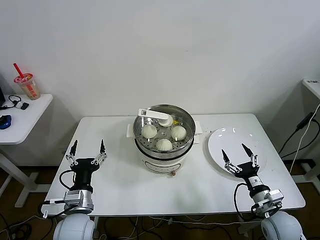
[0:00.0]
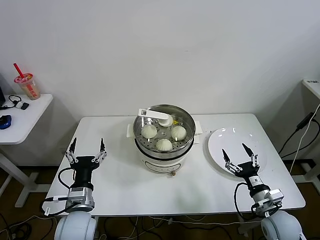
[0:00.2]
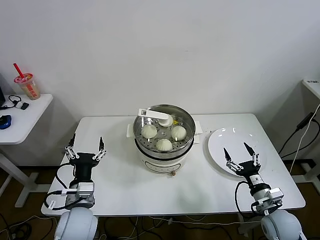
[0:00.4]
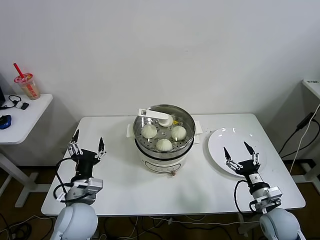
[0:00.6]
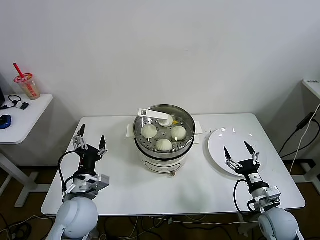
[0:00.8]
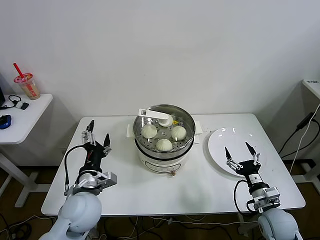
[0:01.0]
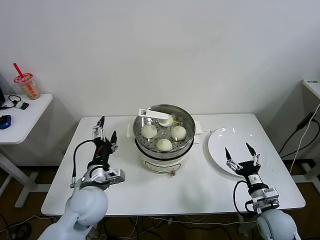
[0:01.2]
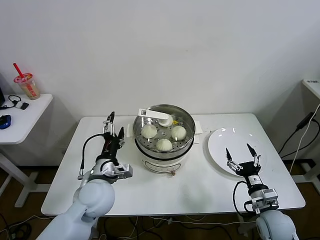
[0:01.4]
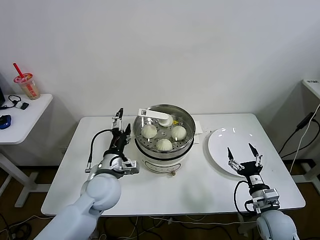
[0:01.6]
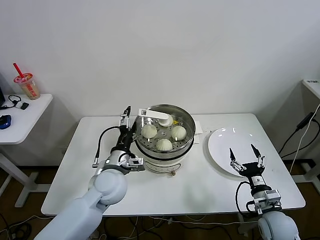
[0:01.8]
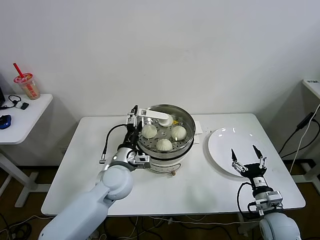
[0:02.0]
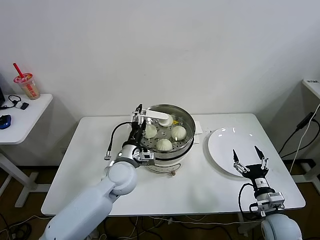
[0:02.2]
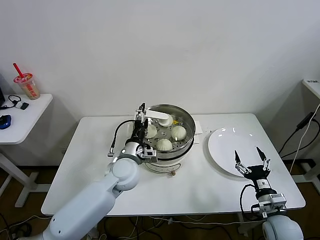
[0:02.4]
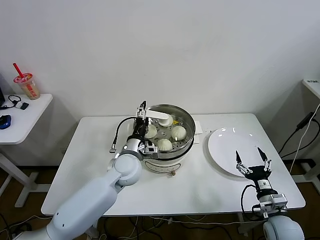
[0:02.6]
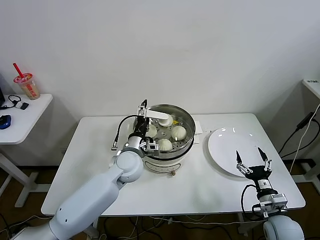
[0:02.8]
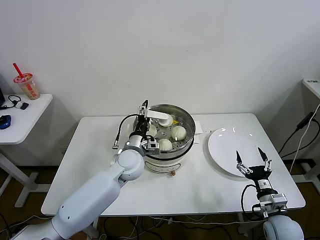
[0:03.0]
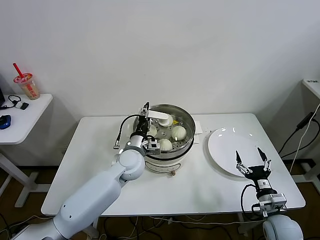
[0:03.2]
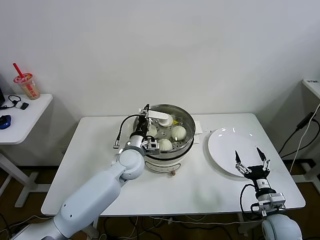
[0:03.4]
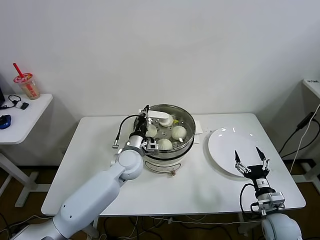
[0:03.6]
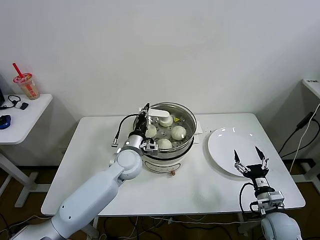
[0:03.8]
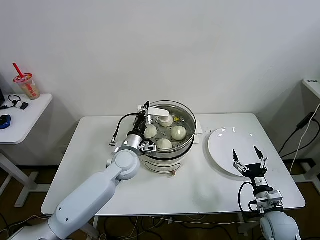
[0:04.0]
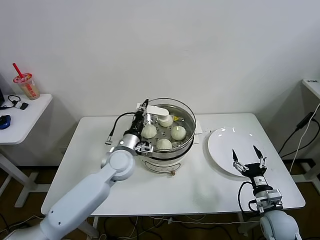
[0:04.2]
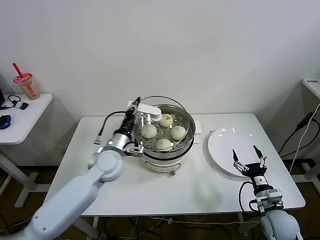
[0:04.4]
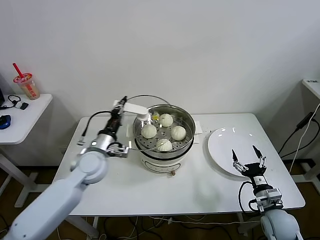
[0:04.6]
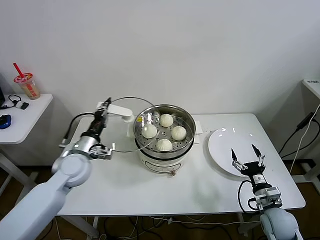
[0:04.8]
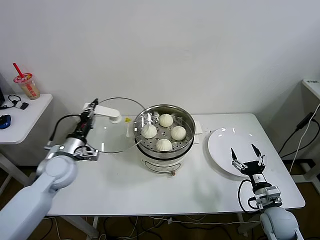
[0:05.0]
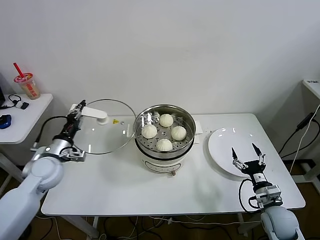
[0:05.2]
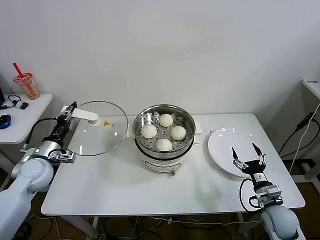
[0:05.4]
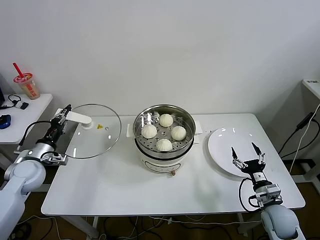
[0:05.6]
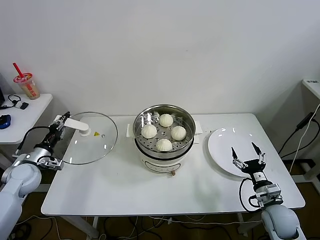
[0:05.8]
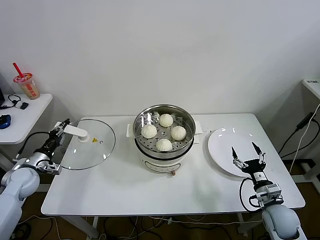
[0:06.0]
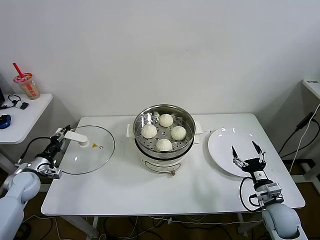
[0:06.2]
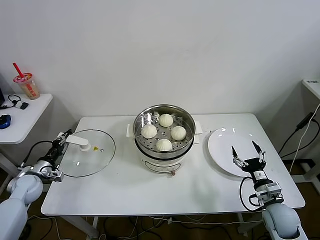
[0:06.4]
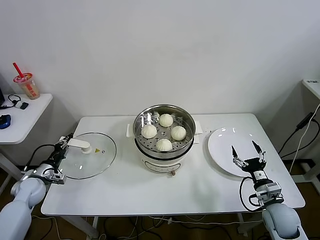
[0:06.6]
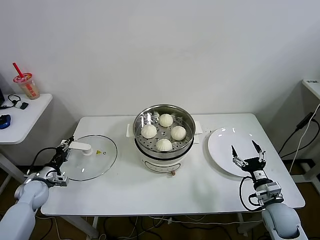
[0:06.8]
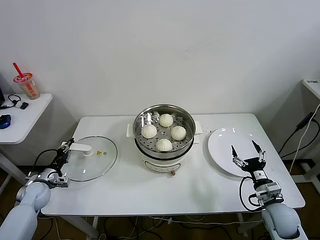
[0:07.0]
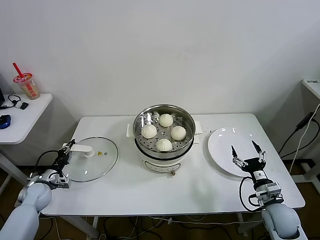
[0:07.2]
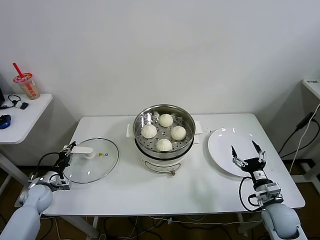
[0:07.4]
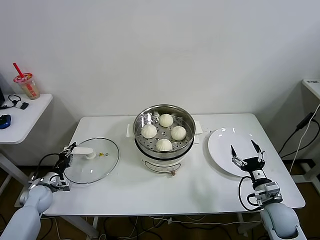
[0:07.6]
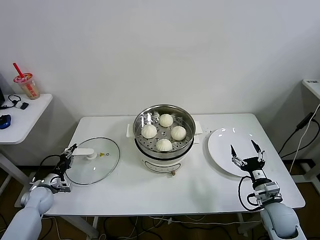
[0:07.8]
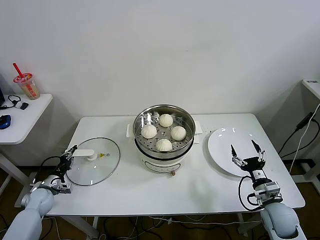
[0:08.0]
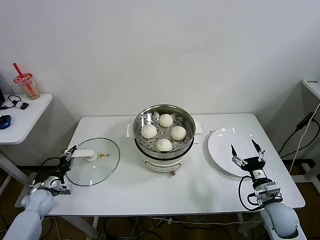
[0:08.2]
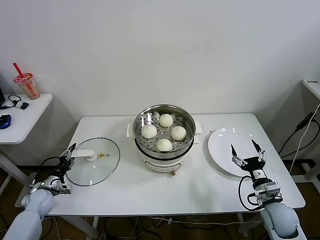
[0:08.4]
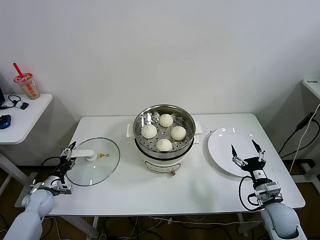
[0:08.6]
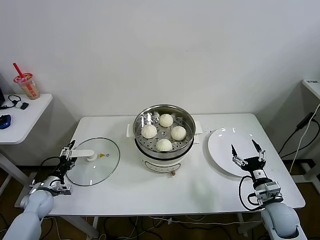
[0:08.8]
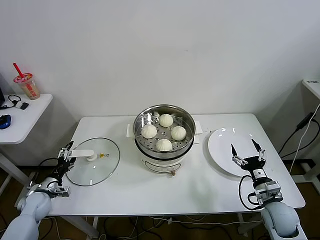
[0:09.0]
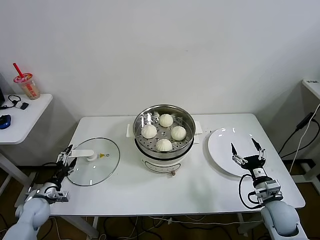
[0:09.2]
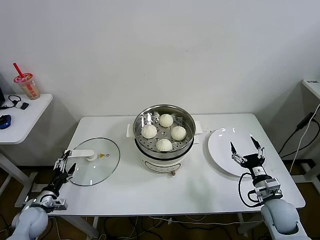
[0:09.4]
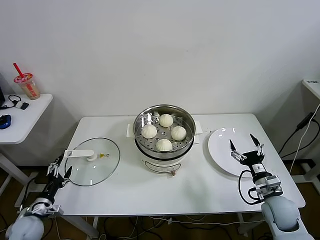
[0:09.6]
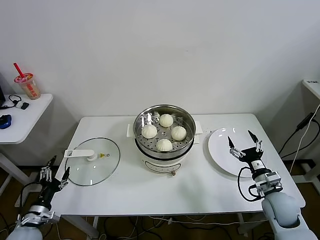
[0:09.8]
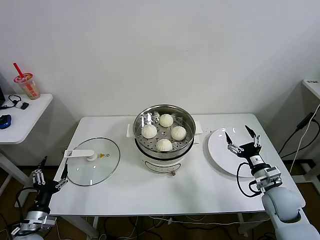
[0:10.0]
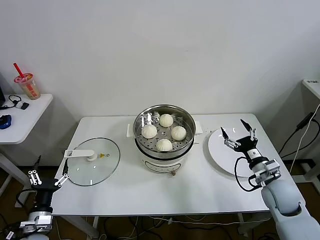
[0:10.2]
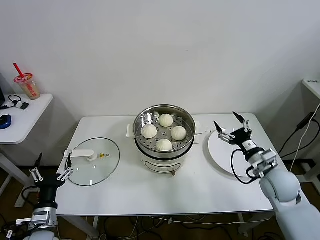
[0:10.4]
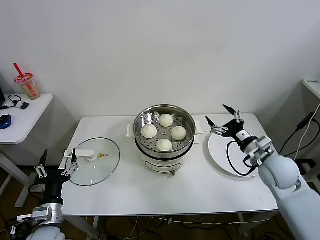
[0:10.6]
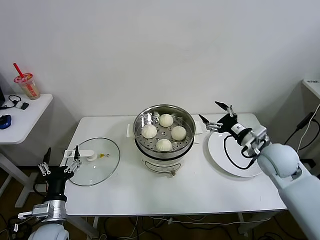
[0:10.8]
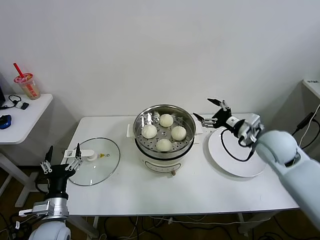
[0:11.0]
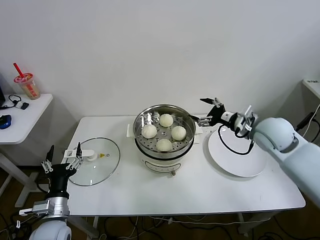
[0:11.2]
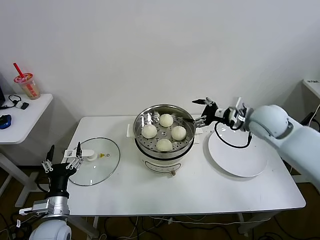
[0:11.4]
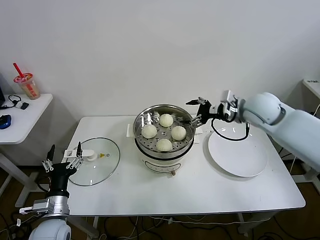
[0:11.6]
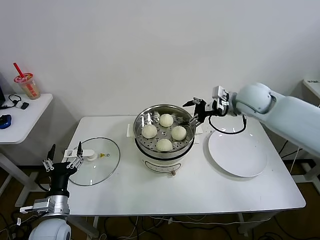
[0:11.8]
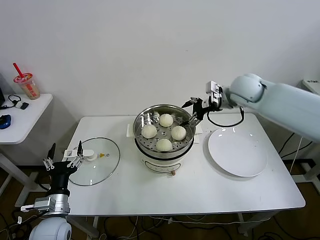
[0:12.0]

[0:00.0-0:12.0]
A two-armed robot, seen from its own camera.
Task of the whole recording: take steamed baozi put them in steamer then cover it.
Step, 0.0 to 3.6 s: Grasp the pot lid with left gripper.
Step, 3.8 to 8.2 s: Place the pot lid on the table with left gripper.
1.6 to 3.0 s: The left gripper shifts some 10 cm forward and to the right.
3.0 to 4.4 s: The left gripper travels to the left by about 5 cm, and closes.
4.4 to 6.0 s: The left gripper goes about 30 cm to the left.
6.0 to 7.6 s: The left gripper travels downward by approximately 10 cm.
7.6 to 9.0 s: The left gripper opens its fingers.
9.0 to 10.4 s: The right gripper moves upward and forward, about 15 cm; the left gripper moves backward, to the right and upward, some 20 cm.
10.4 to 12.0 s: The left gripper shifts by approximately 5 cm, while the right gripper goes about 30 cm forward, upward and to the left.

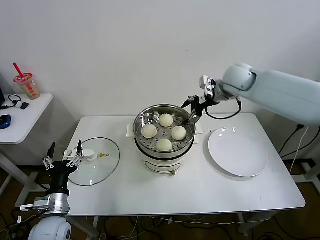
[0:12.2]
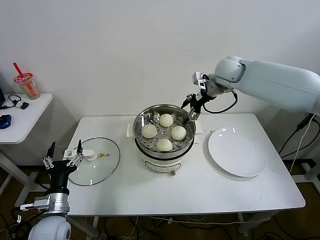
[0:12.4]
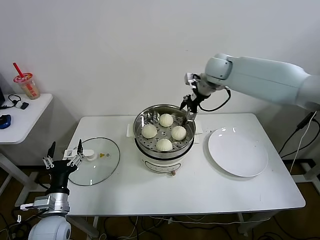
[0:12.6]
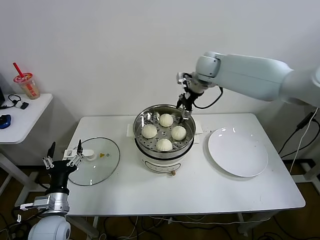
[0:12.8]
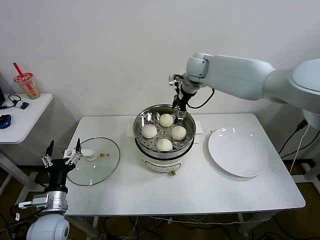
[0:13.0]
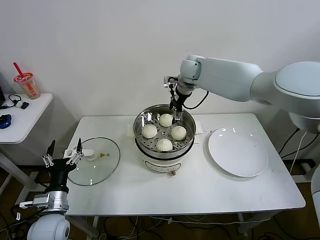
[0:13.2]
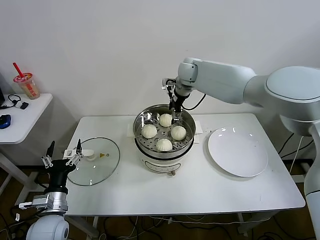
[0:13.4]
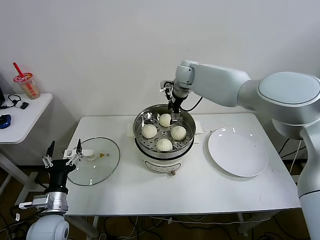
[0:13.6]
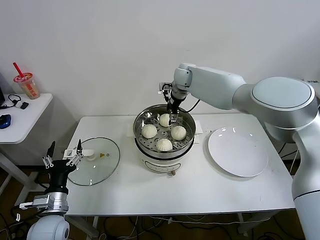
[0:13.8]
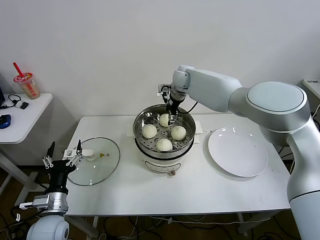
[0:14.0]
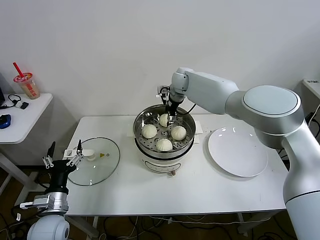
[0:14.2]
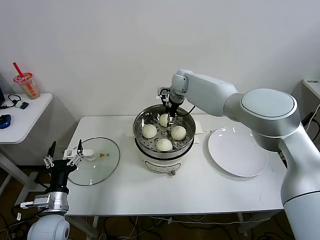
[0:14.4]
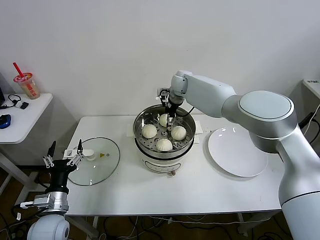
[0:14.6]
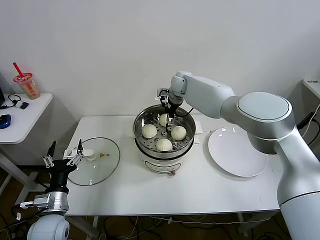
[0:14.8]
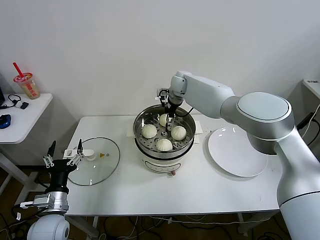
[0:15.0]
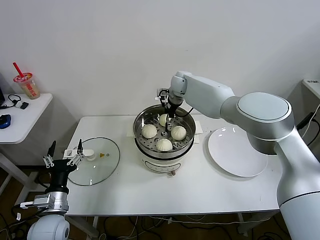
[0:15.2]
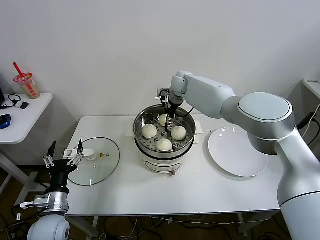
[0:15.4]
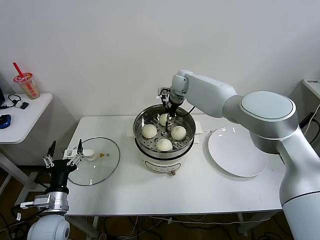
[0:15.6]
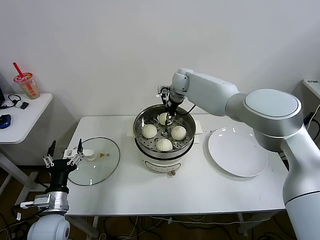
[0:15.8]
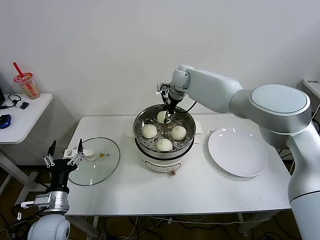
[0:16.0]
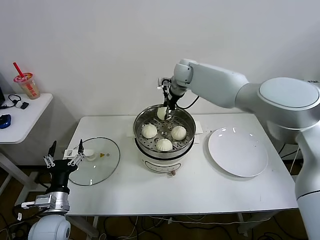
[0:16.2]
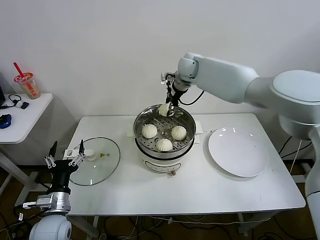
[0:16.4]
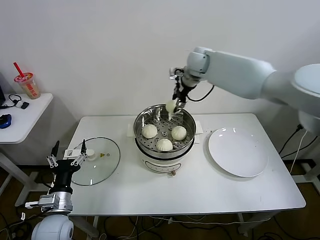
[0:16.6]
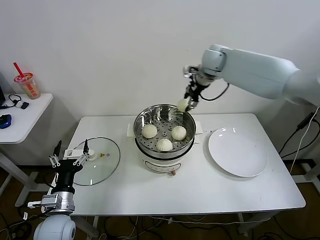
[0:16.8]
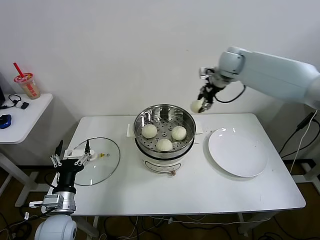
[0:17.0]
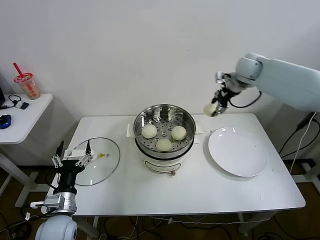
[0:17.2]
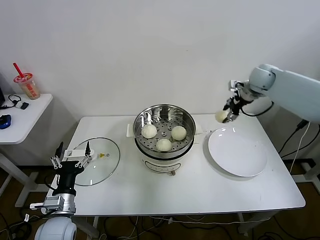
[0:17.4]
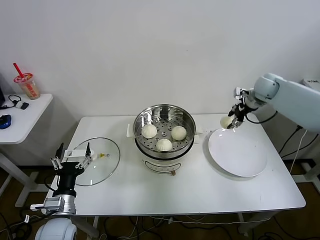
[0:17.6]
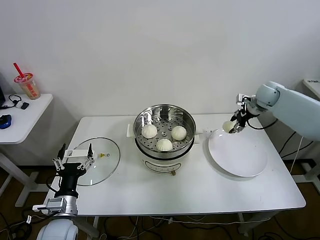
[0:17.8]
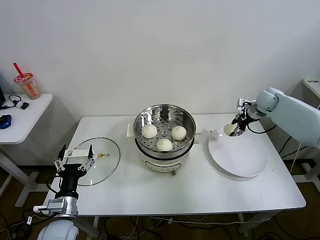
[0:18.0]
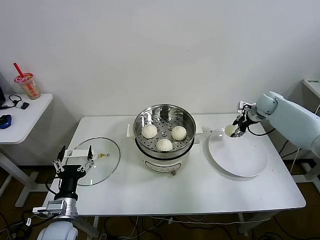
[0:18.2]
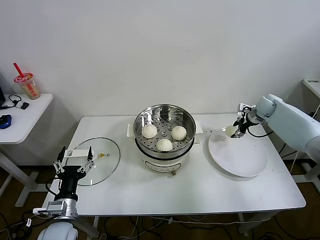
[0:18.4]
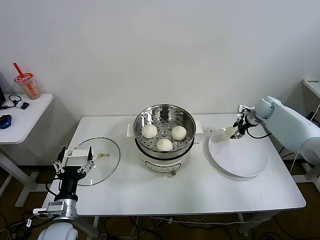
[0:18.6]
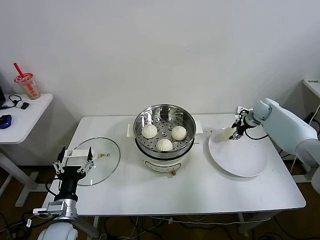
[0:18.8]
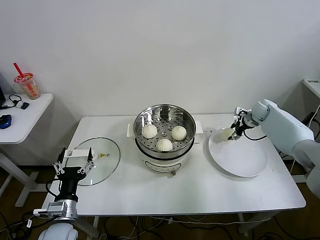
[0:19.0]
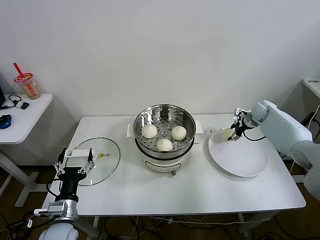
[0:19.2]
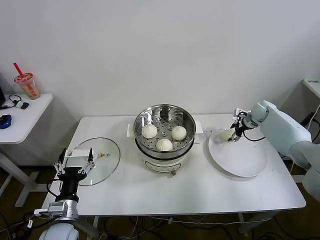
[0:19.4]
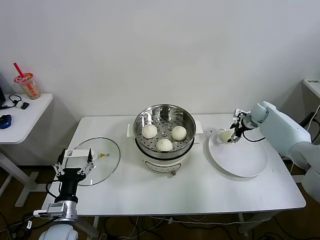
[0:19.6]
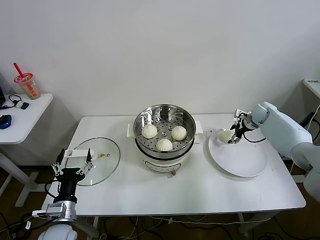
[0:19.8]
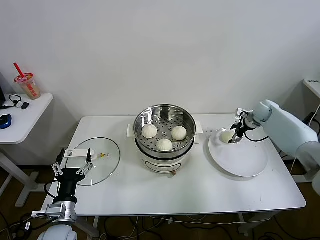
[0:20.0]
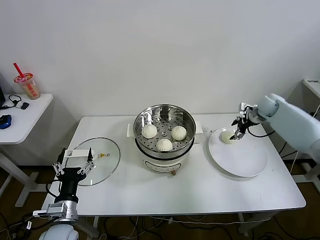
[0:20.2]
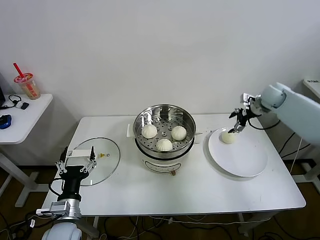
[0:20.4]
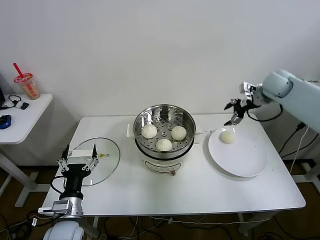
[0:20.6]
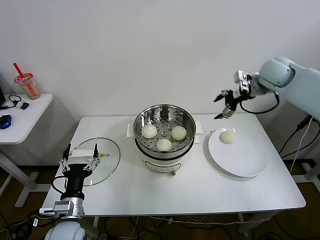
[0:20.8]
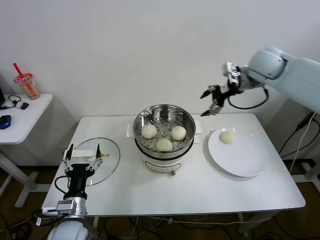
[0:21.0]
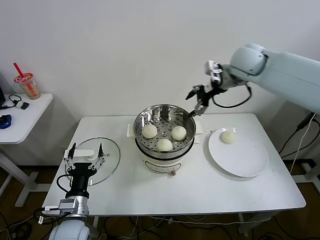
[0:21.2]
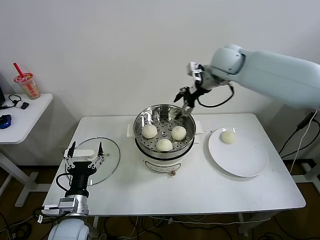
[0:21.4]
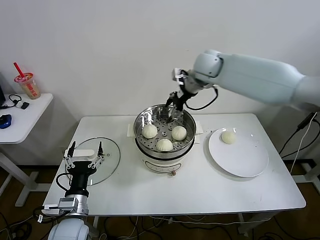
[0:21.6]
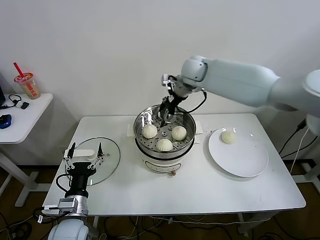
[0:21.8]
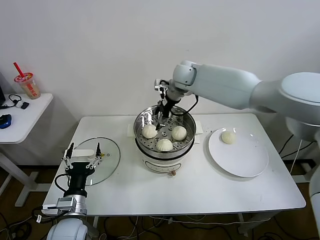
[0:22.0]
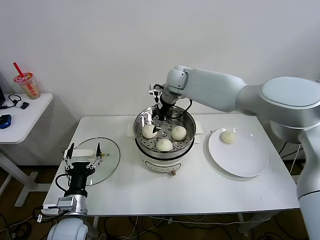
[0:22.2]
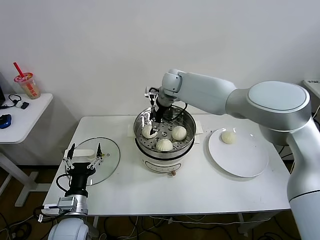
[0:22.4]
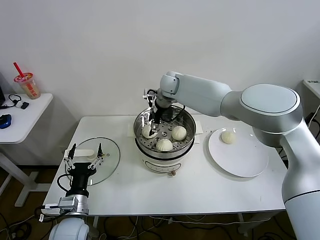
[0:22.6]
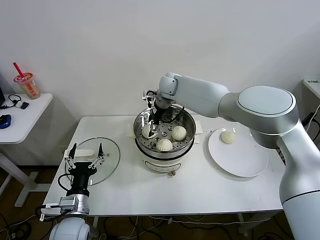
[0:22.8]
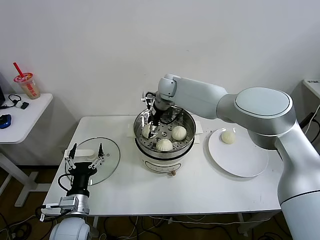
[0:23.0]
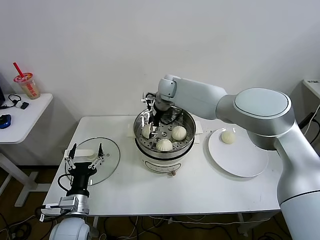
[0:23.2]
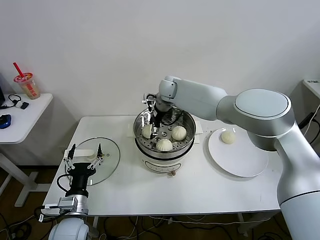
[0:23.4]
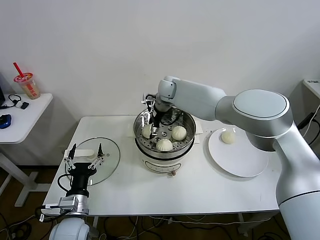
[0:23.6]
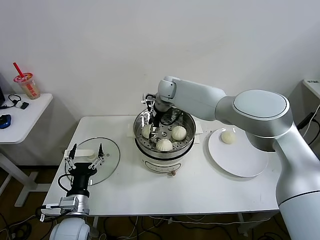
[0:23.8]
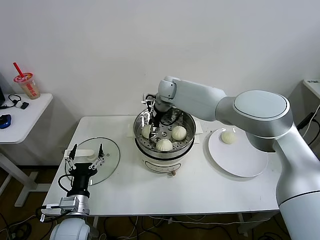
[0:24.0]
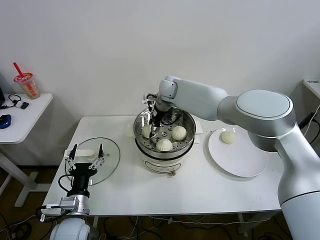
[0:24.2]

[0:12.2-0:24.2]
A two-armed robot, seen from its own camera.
Task of the whole recording: take steamed baozi put them in steamer then cover it.
Step, 12.2 to 15.2 s: Grasp the baozi with right gripper.
Step, 15.4 to 19.4 s: Place the baozi on the plate with right gripper.
Step, 19.8 to 23.8 s: Grasp the baozi with right gripper.
12.2 to 13.8 s: The right gripper travels to the left and forward by some 15 cm.
13.8 to 15.2 s: The right gripper closes up.
15.2 to 16.6 s: The right gripper is displaced upward and to the right by some 15 cm.
16.6 to 18.2 s: The right gripper goes about 35 cm to the right and downward.
18.2 to 19.8 s: The right gripper travels downward by roughly 5 cm, and opens.
19.8 to 21.2 s: The right gripper moves upward and to the left, about 35 cm.
21.2 to 22.6 s: The right gripper is displaced to the left, downward and forward by roughly 25 cm.
22.6 to 24.2 s: The right gripper closes its fingers.
